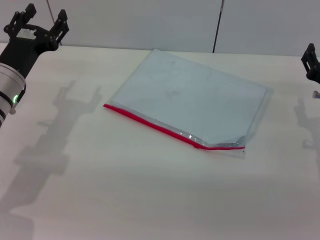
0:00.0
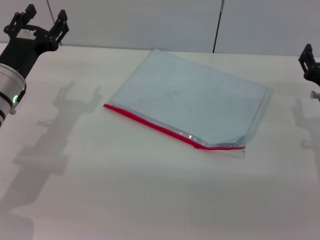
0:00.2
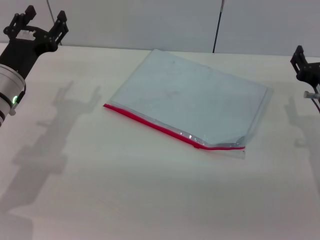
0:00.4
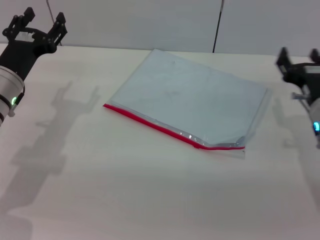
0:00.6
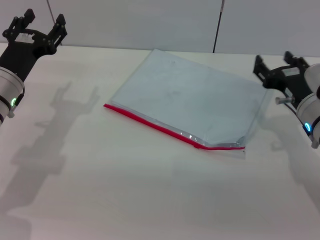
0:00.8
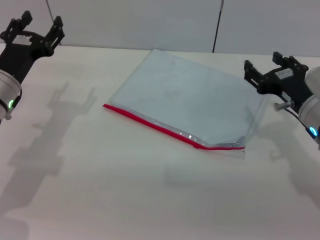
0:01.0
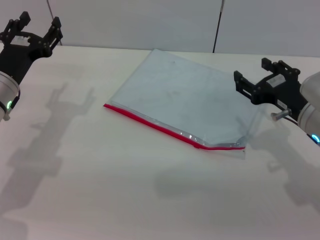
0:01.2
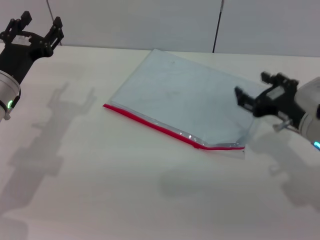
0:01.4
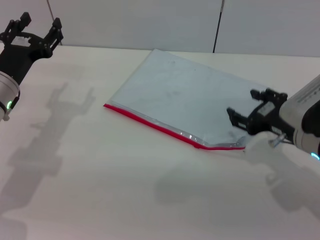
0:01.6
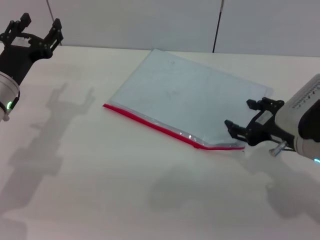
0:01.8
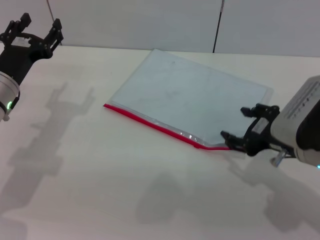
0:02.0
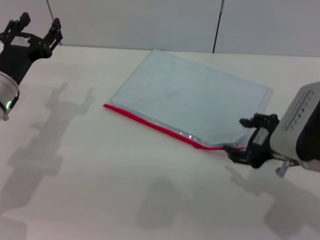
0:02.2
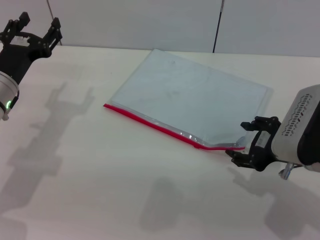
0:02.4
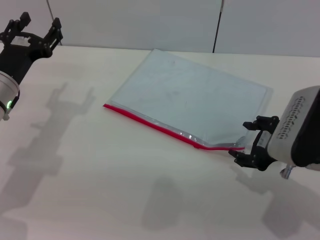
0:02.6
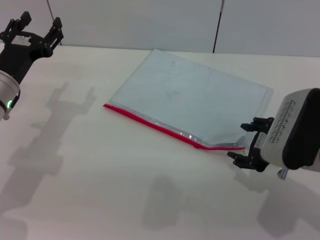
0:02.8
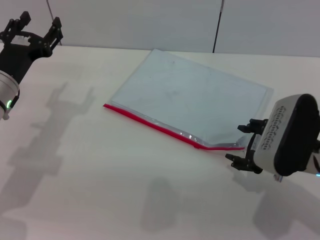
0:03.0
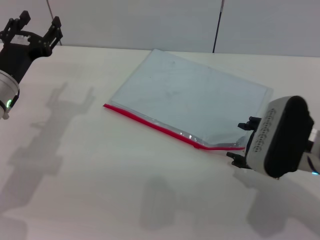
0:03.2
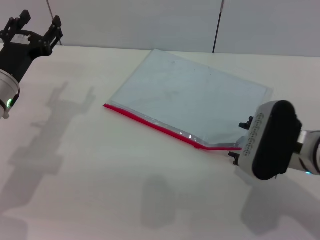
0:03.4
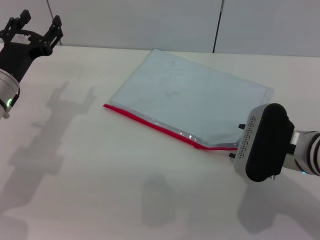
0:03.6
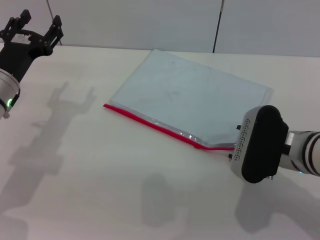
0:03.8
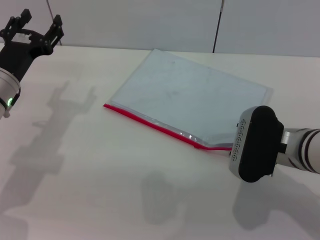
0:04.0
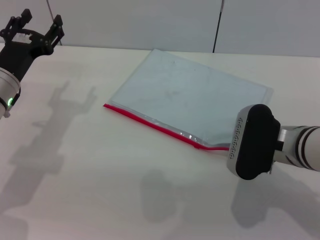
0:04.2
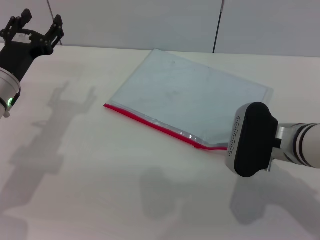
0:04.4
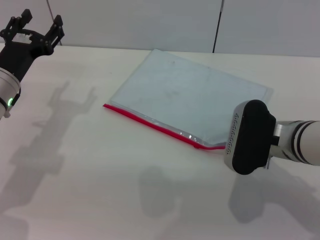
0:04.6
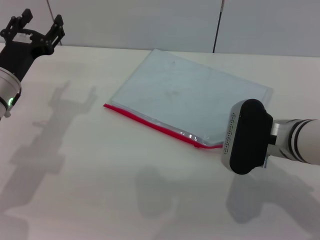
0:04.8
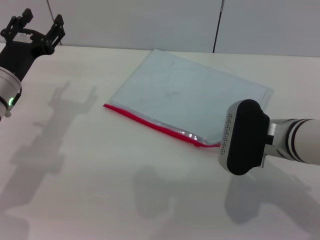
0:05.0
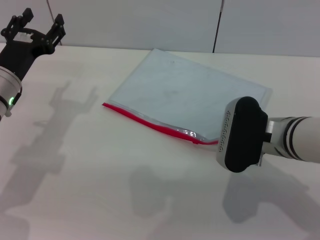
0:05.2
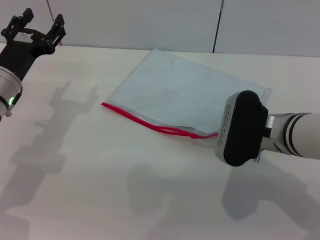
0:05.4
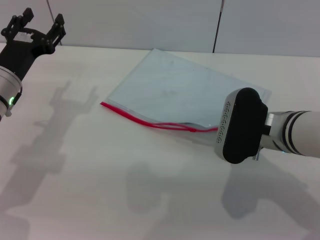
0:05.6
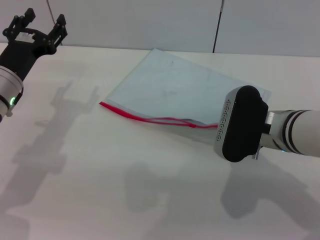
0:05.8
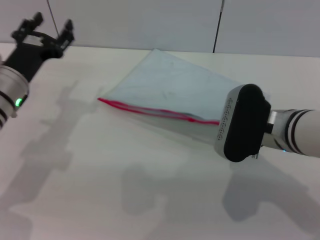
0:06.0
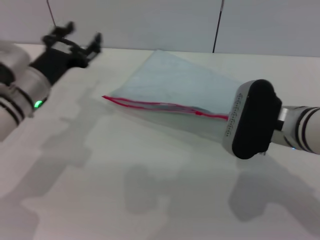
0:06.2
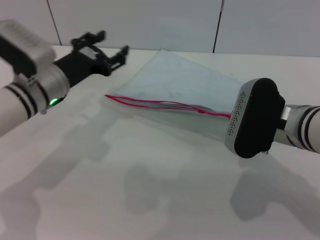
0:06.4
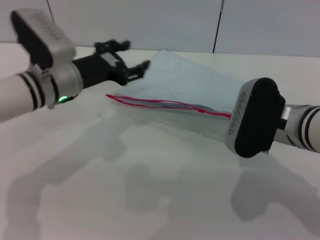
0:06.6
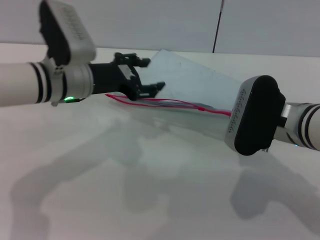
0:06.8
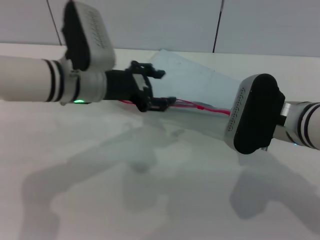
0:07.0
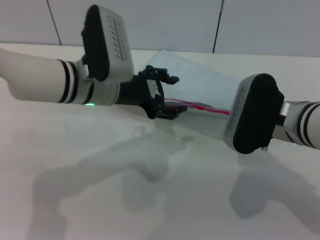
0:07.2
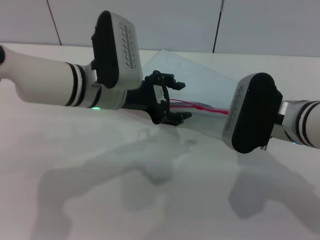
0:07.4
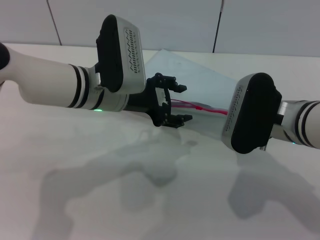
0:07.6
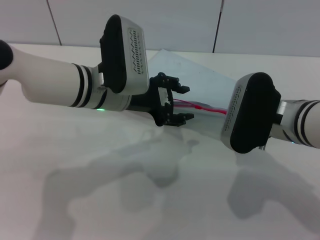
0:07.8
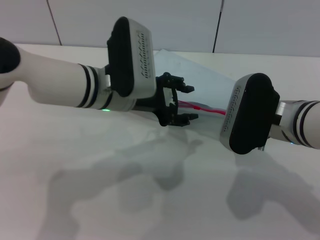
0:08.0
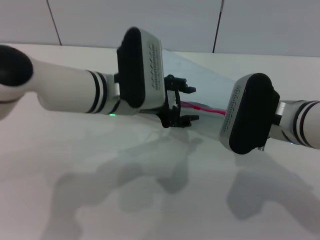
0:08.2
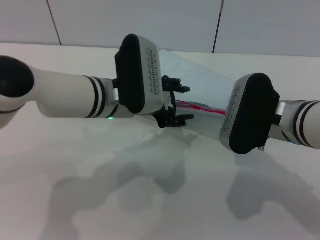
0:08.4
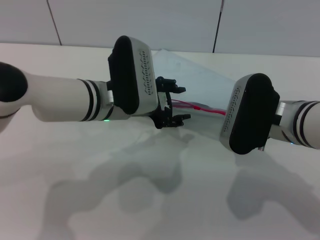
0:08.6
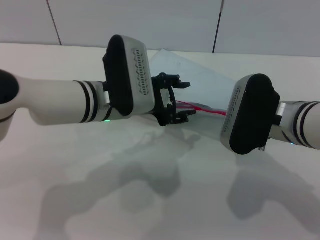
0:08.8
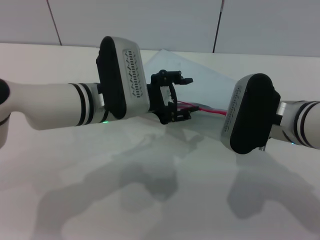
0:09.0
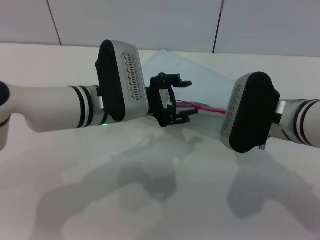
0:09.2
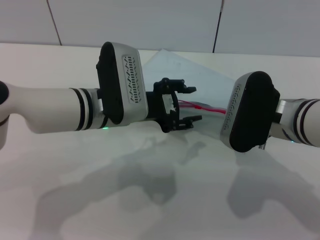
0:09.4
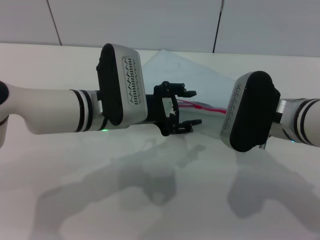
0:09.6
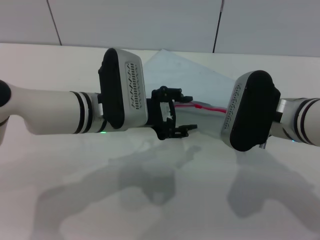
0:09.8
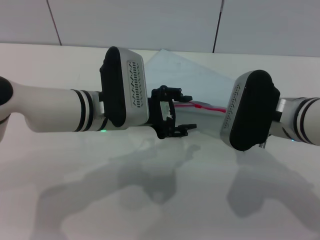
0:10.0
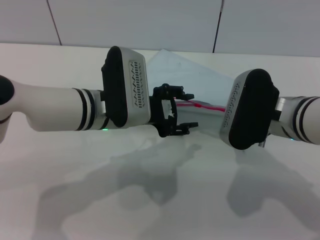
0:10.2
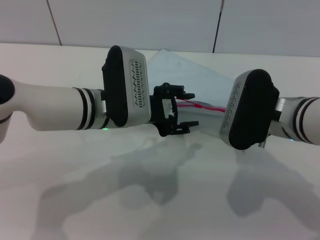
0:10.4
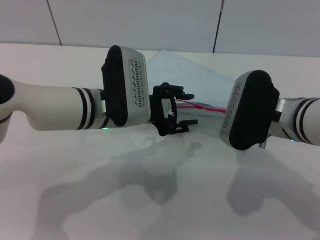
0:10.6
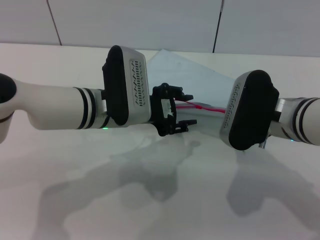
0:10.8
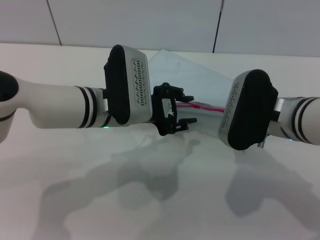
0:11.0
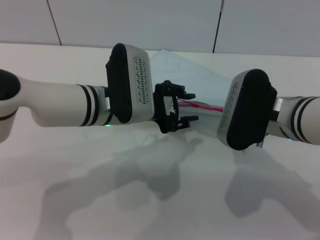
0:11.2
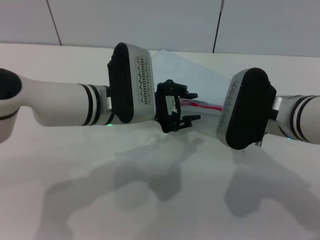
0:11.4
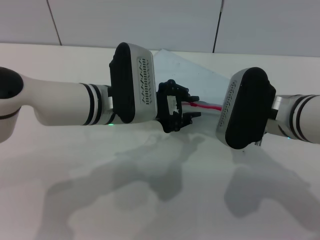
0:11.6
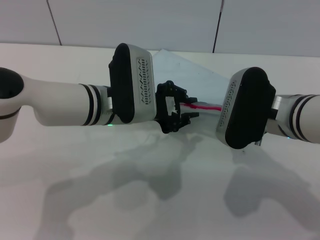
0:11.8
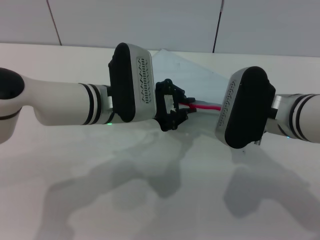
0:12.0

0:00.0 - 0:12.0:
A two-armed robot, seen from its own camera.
Step, 0:00.0 - 0:06.6: Pick up the transparent plastic bag with the right gripper.
0:00.0 - 0:01.6: The right gripper moves some 5 cm.
0:03.0 - 0:04.4: There are only small adjustments of the grippers.
0:04.4 - 0:06.0: The right gripper closes.
0:06.0 - 0:07.6: The left gripper moves to the right, approximately 15 cm.
0:07.6 - 0:10.4: The grippers stay close to where they were, moving slightly.
0:10.4 - 0:12.0: The left gripper closes up.

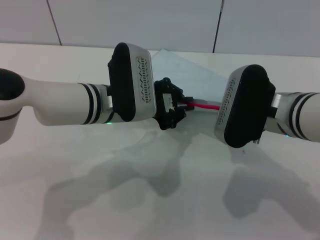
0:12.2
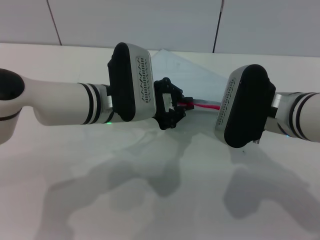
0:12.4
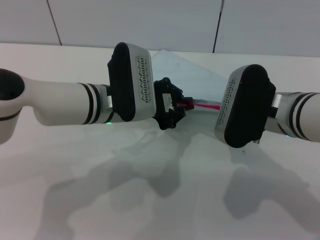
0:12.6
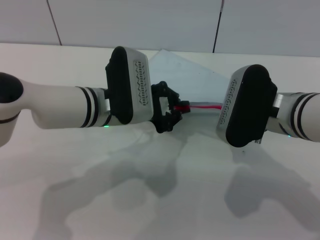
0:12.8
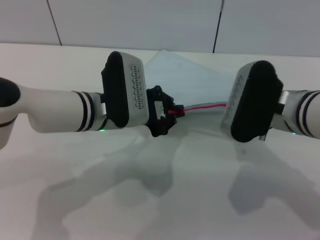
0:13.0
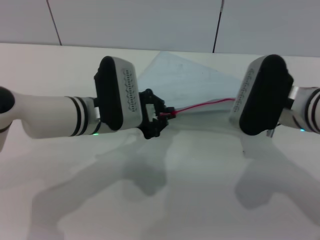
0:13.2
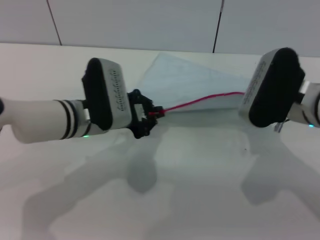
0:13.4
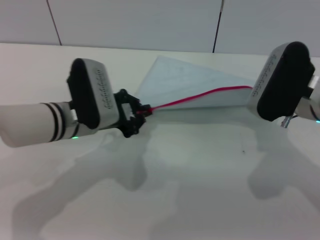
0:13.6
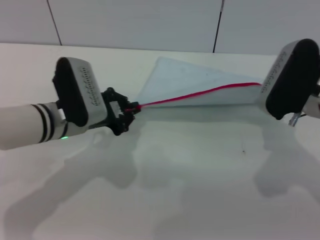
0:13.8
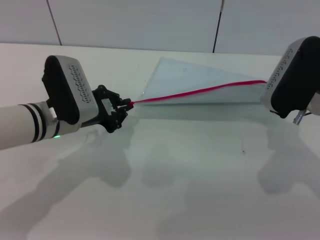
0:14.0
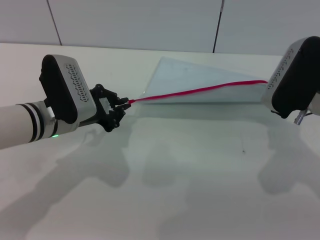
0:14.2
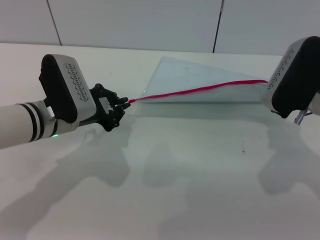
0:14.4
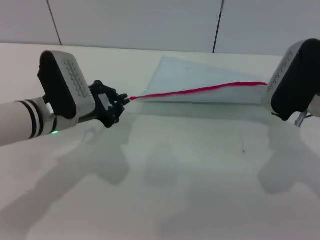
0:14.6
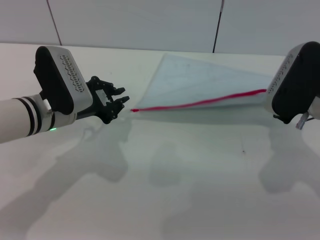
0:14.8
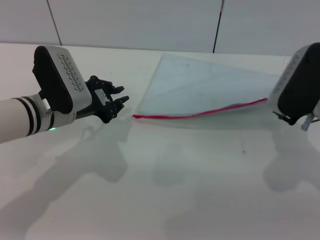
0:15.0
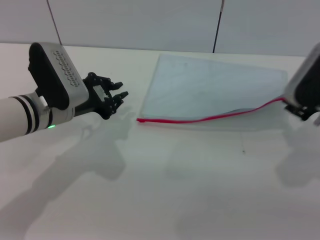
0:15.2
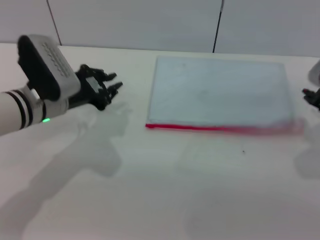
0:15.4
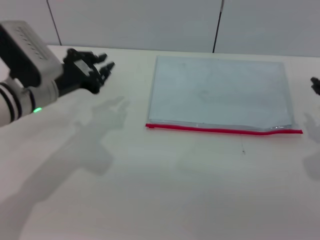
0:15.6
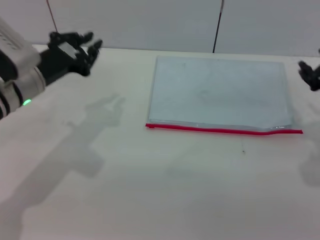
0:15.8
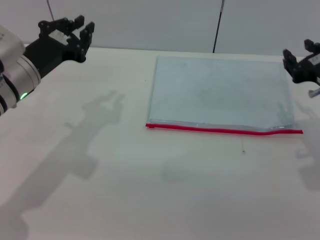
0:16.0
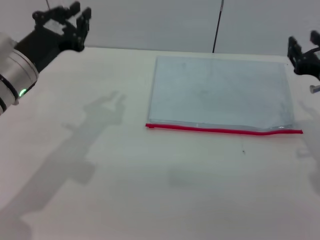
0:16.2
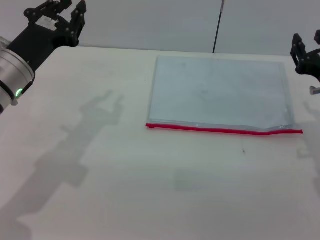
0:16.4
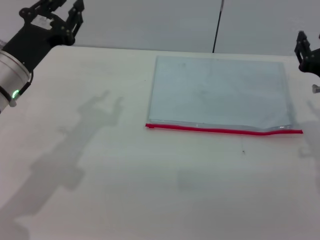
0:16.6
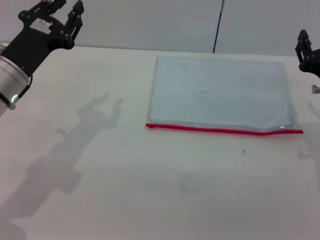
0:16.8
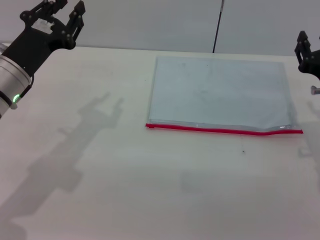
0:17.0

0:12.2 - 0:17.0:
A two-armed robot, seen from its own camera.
Step, 0:12.2 - 0:14.6: Pulling up the zipper on the transparent plastic bag with the left gripper to close it.
Step, 0:15.0 - 0:15.6: Place the transparent plastic bag.
0:12.2 - 0:13.8: The right gripper heads to the right, covering roughly 5 cm. The left gripper is displaced to the left by approximately 5 cm.
0:13.8 - 0:15.4: The right gripper goes some 5 cm to the right, and opens up.
0:15.4 - 0:17.0: The right gripper ends up approximately 5 cm from where it was. The left gripper changes place by approximately 5 cm.

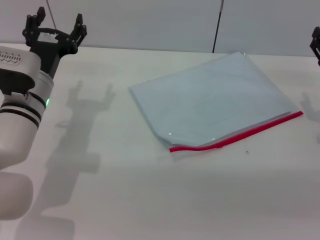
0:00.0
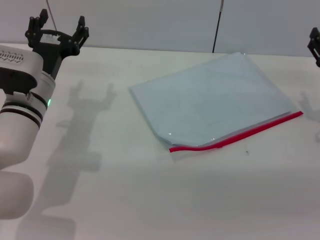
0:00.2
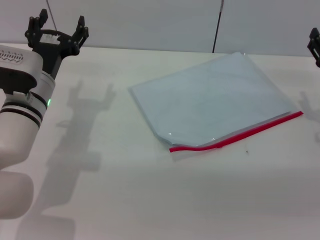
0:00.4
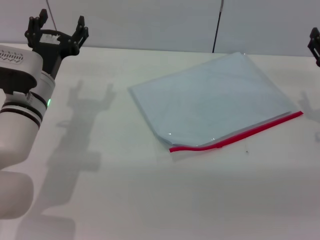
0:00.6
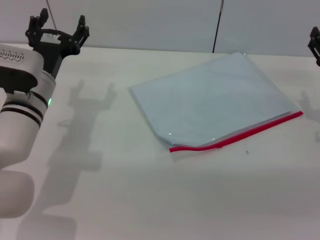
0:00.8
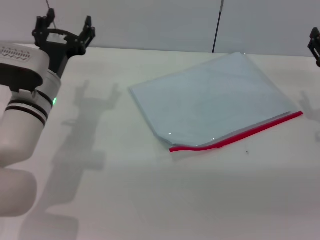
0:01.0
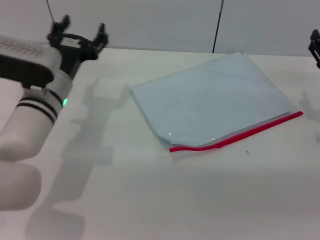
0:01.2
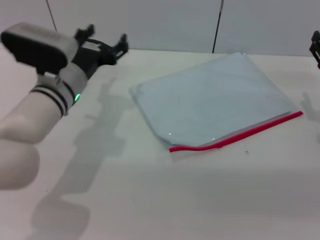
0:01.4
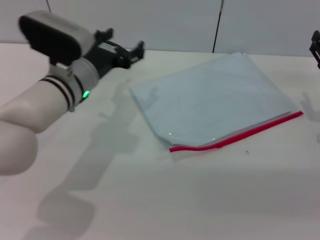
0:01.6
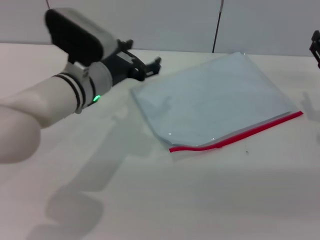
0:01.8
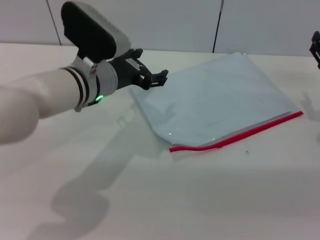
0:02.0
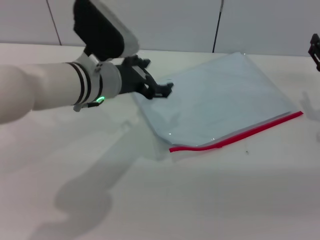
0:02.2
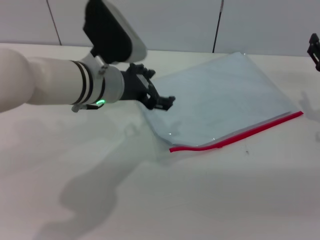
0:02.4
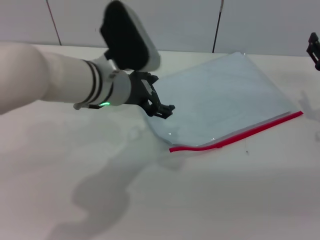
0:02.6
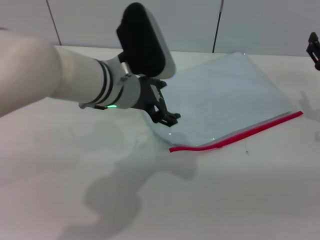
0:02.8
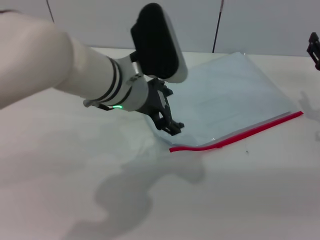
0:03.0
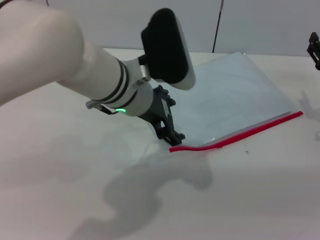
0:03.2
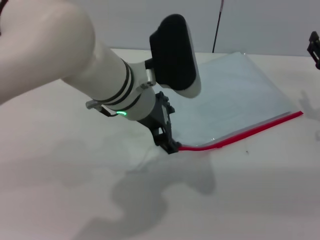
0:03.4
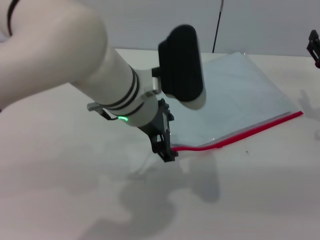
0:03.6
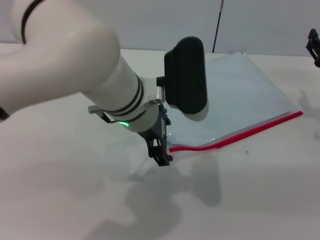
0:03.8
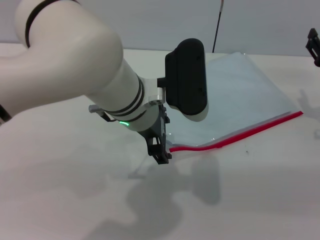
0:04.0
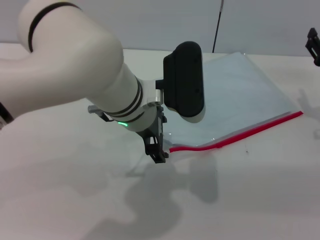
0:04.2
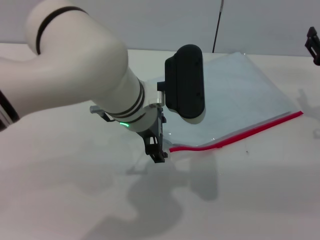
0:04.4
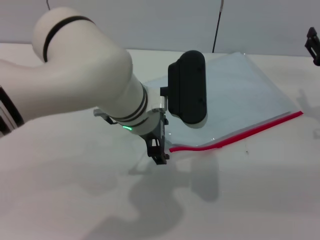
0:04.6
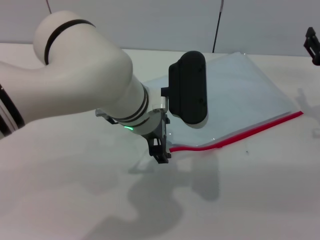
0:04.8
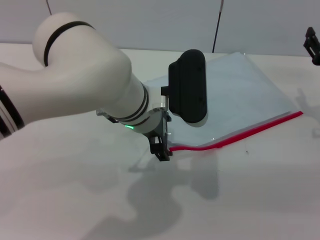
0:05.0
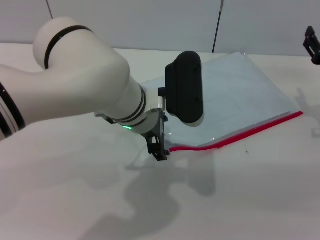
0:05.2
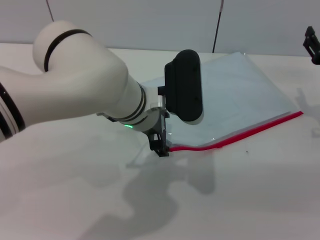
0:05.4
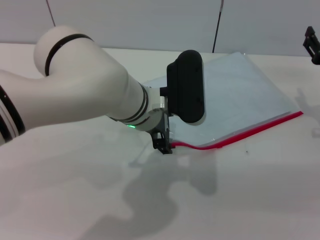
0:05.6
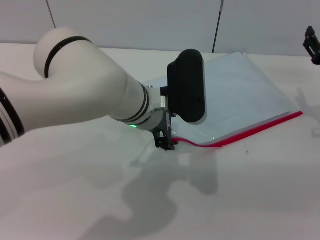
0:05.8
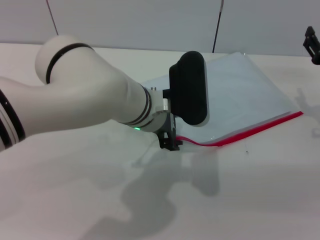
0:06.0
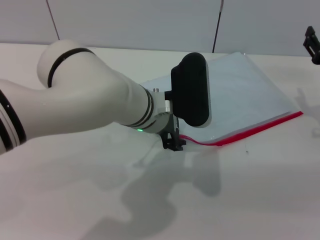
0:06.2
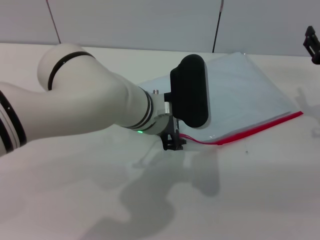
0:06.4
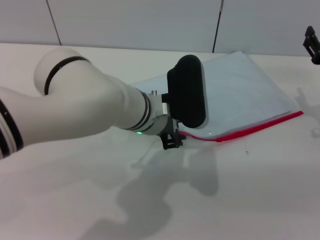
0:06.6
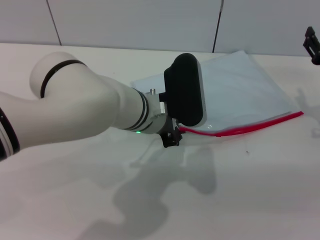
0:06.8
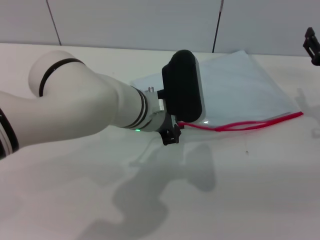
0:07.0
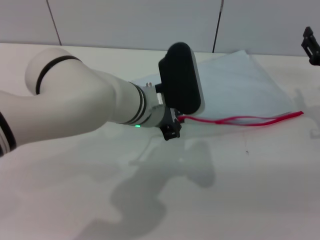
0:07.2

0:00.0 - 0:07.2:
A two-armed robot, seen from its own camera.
0:00.0 - 0:01.4: There are only small adjustments of the grippers.
0:01.4 - 0:02.8: The left gripper is displaced to the right and upward by approximately 10 cm.
0:04.4 - 0:05.8: The grippers make only small movements.
0:05.8 - 0:07.2: The left gripper closes.
